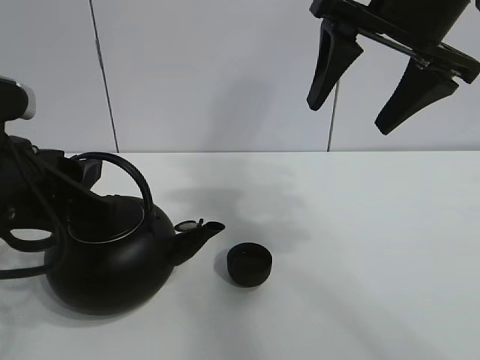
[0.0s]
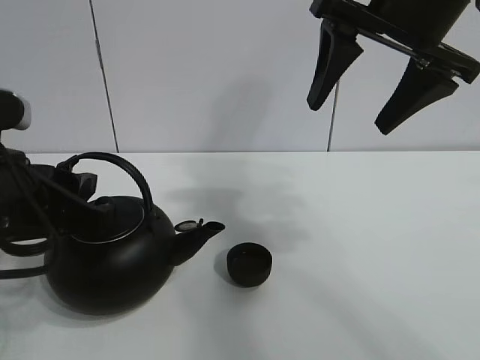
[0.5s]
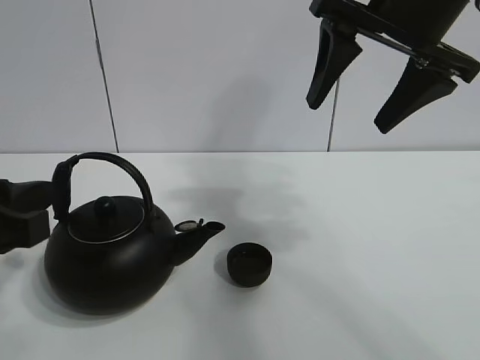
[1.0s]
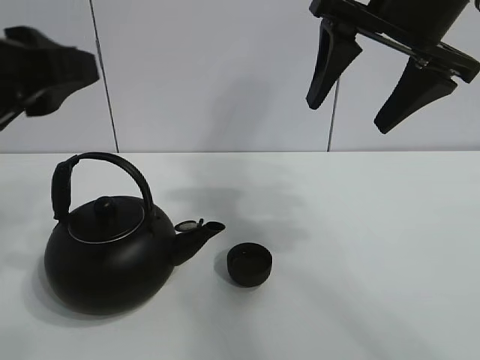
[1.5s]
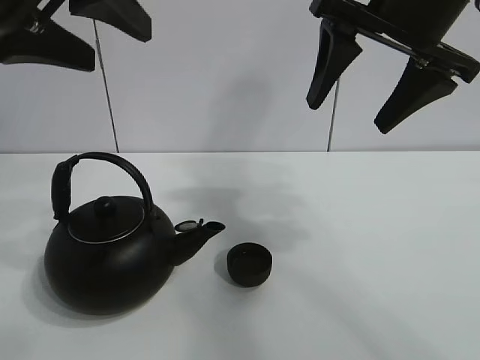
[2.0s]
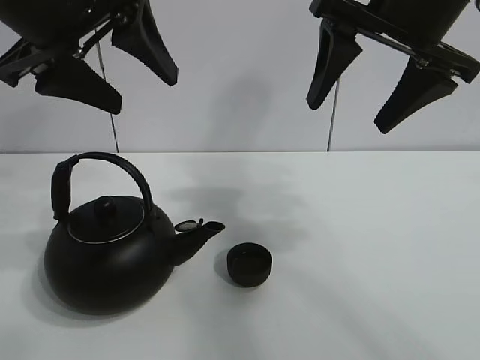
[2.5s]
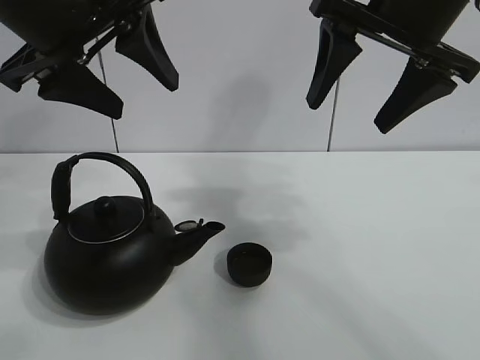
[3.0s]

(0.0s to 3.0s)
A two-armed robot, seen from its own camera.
Task of the whole recording: pour tea into the teacup.
0.0s - 1.5s: The left gripper shifts some 10 cm upward.
1.5s - 3.0s: The left gripper is displaced forward and upward by approximately 10 cm.

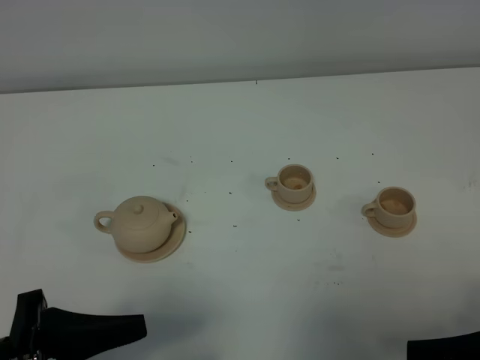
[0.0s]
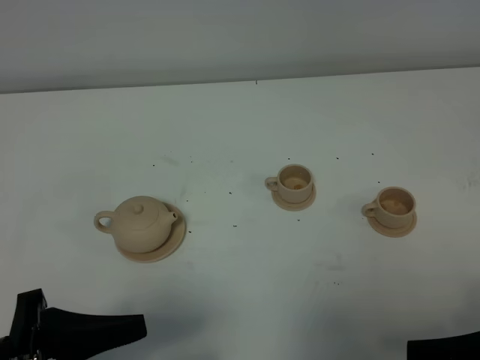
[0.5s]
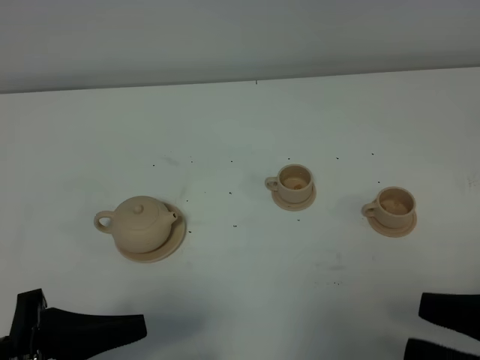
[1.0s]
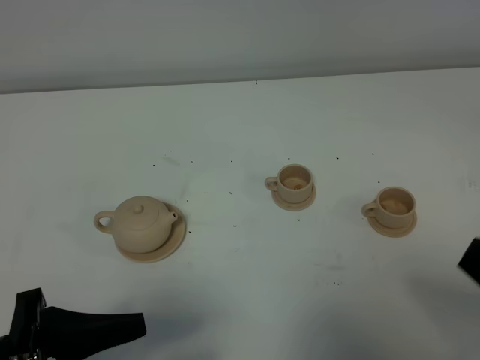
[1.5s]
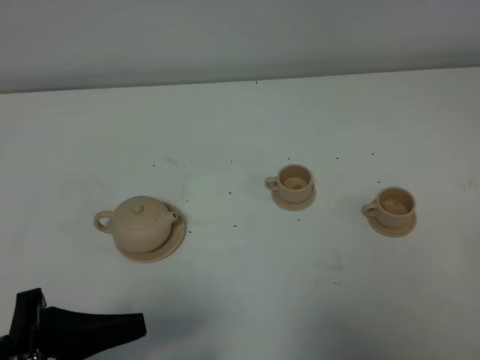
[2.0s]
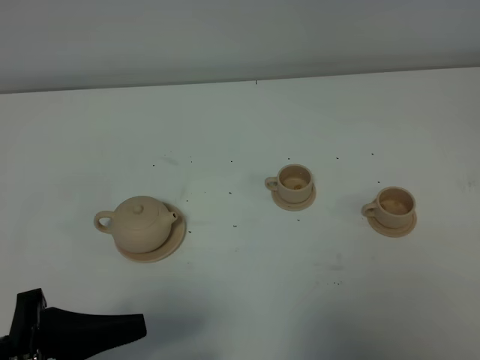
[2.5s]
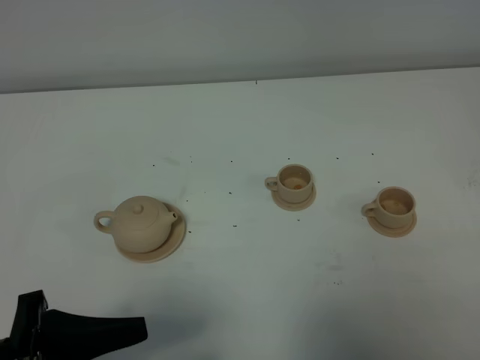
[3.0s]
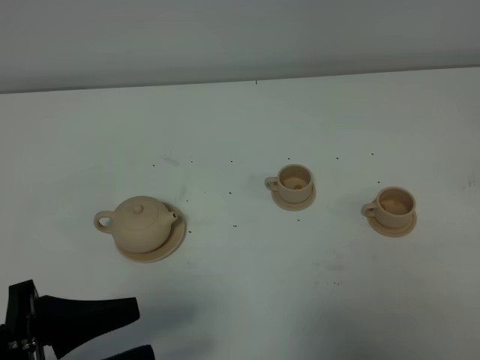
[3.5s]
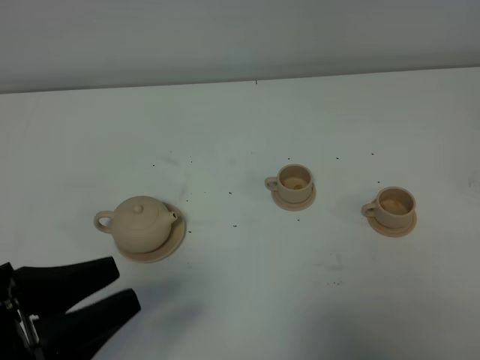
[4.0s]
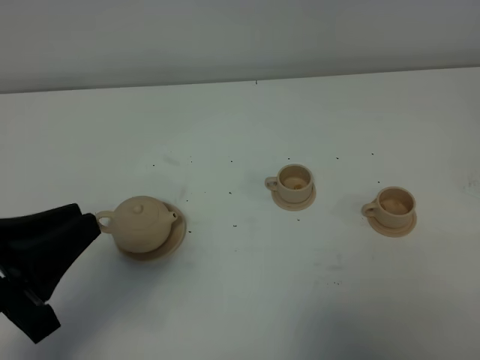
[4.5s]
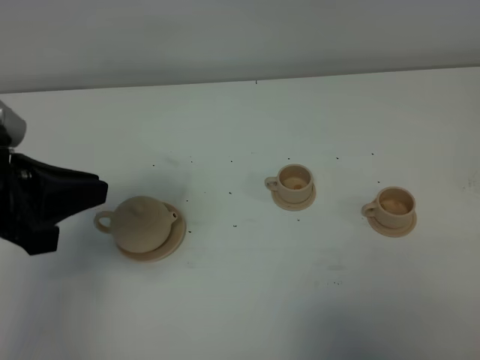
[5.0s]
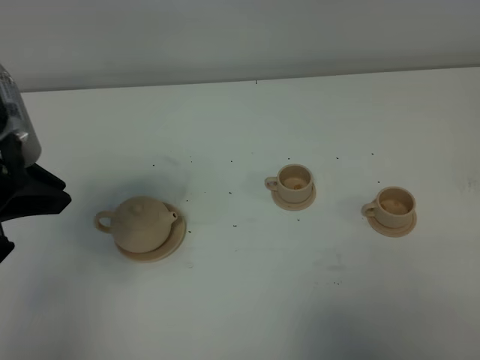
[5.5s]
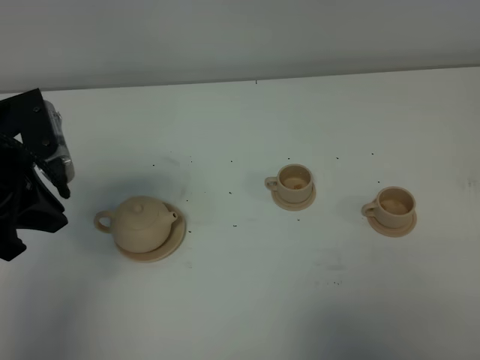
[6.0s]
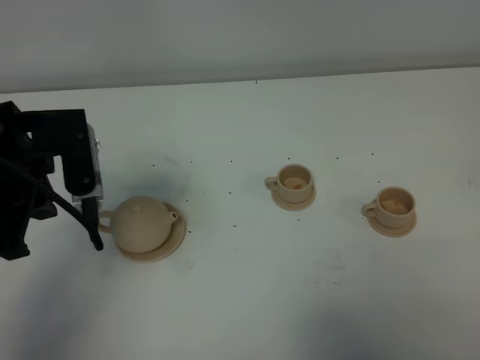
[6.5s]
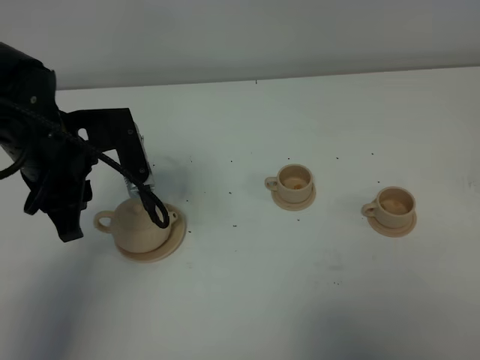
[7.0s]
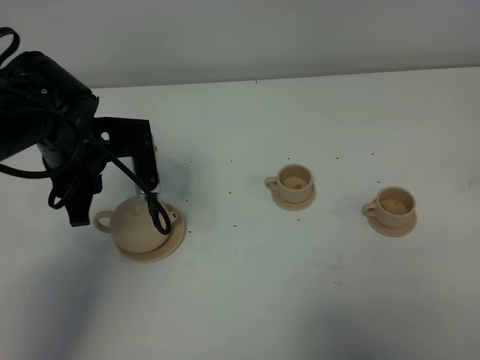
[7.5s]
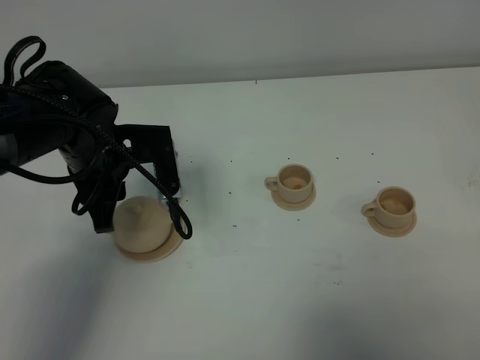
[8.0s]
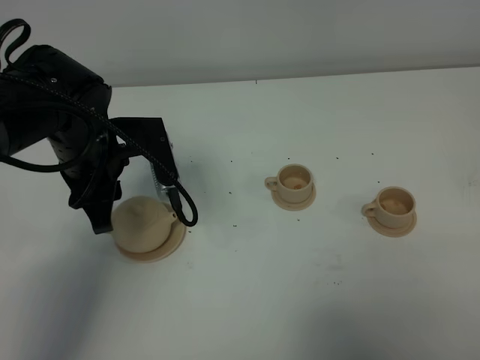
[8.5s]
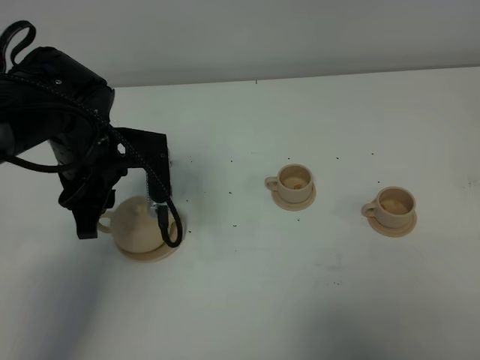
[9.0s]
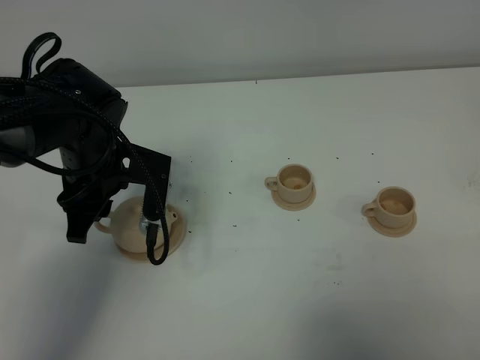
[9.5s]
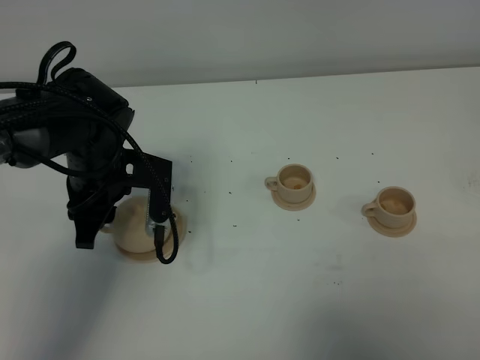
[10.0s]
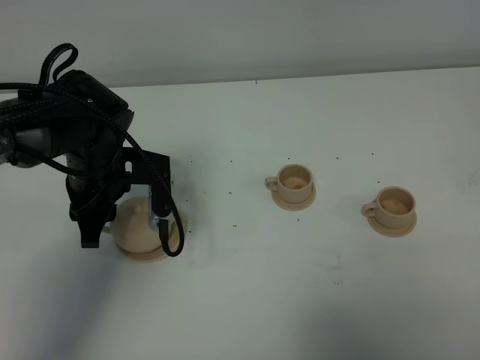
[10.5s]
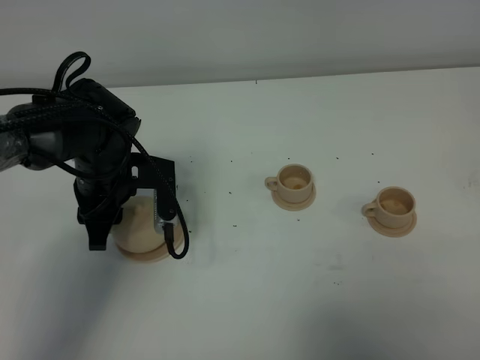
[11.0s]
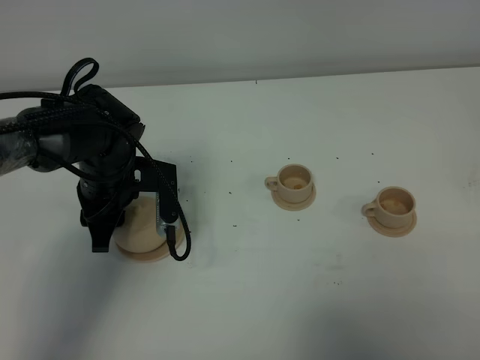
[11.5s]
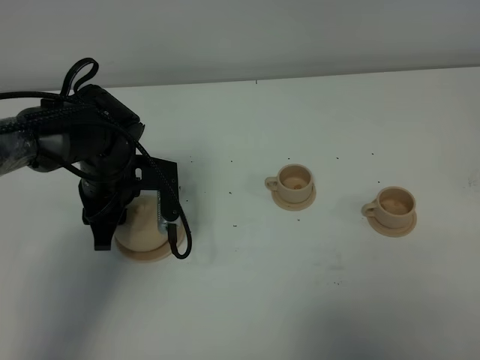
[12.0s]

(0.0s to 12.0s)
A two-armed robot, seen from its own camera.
Task of the whole recording: grasp the brown teapot and pour the tea into the two brown teacups one by one, put the brown teapot back in its original place.
0.0s - 2.0s: The right gripper moves upward and to the right, some 10 cm, and closes.
4.0s - 6.0s: The left gripper goes approximately 15 cm forward, and closes up.
6.0s - 8.0s: The left gripper heads downward, to the right and forward, covering about 15 cm, and opens up.
8.0s - 10.0s: The grippers stay close to where they were, moving slightly.
10.0s - 12.0s: The grippers stay close to where they were, moving slightly.

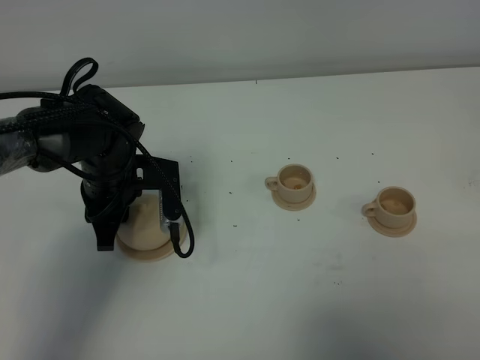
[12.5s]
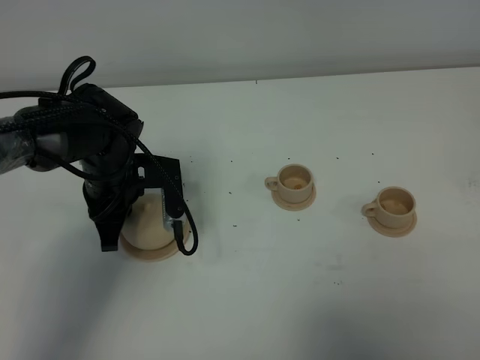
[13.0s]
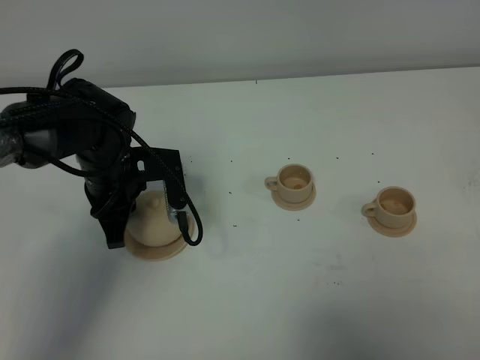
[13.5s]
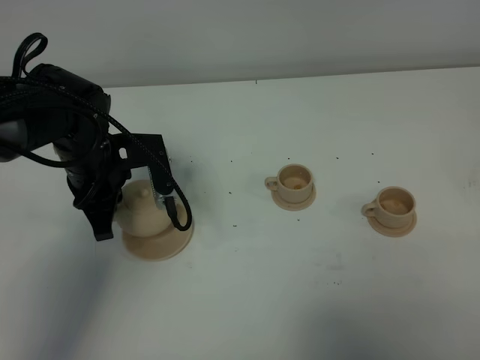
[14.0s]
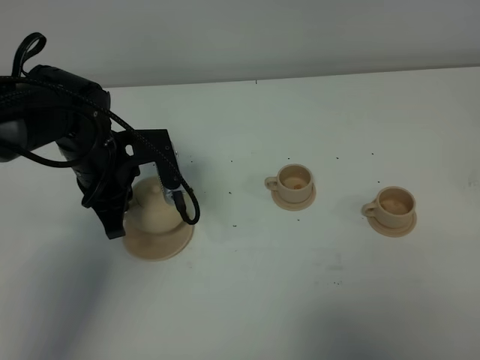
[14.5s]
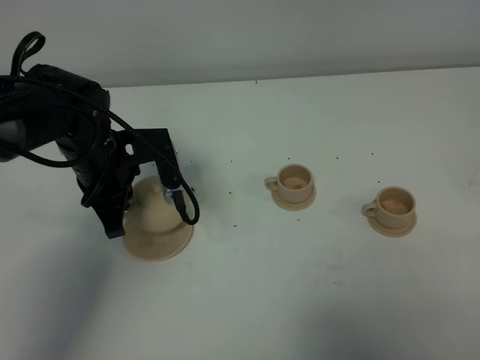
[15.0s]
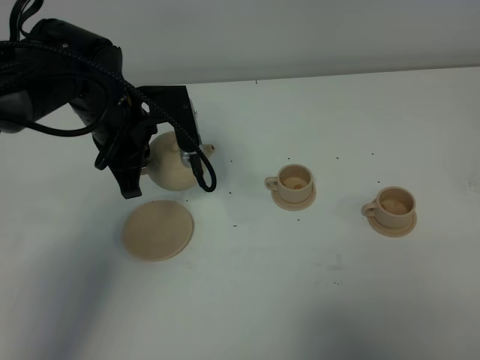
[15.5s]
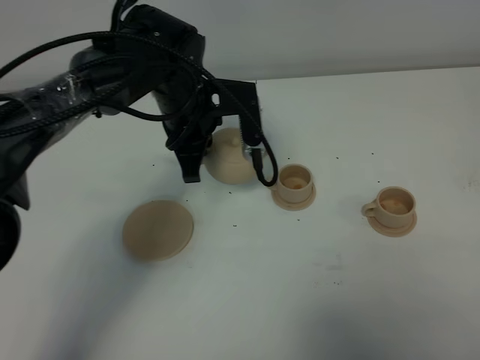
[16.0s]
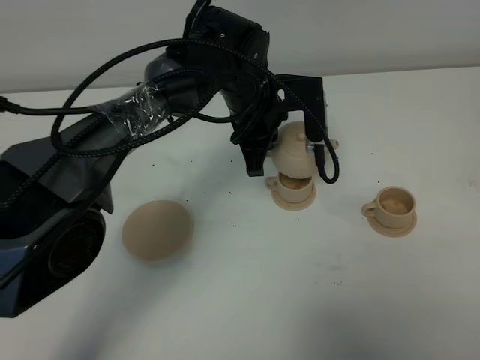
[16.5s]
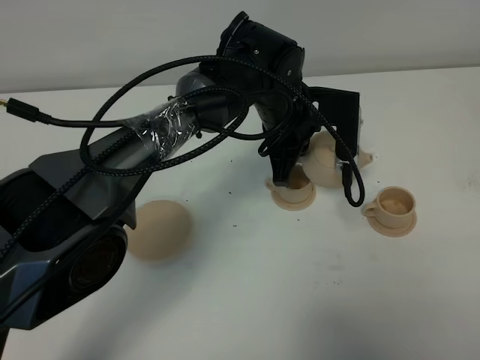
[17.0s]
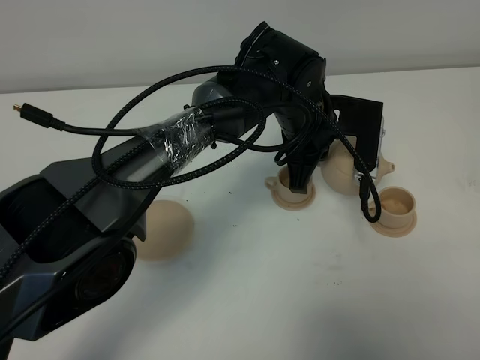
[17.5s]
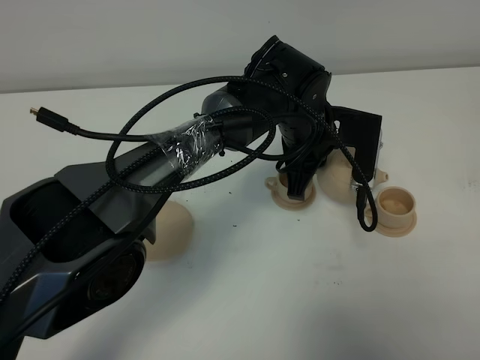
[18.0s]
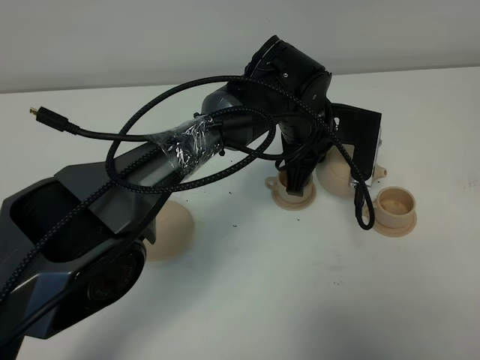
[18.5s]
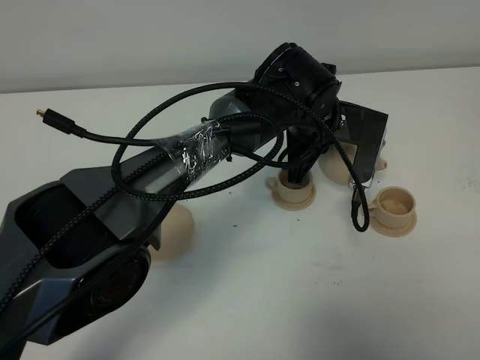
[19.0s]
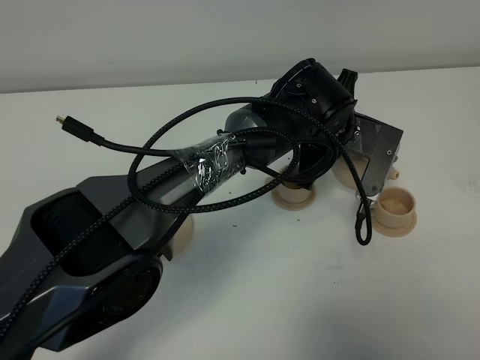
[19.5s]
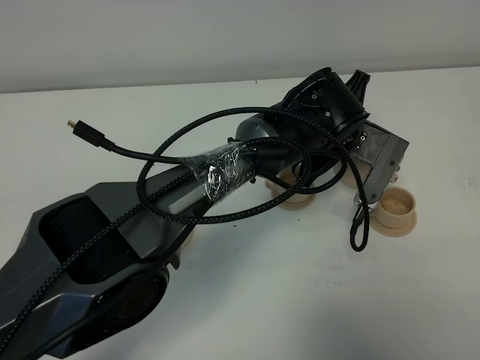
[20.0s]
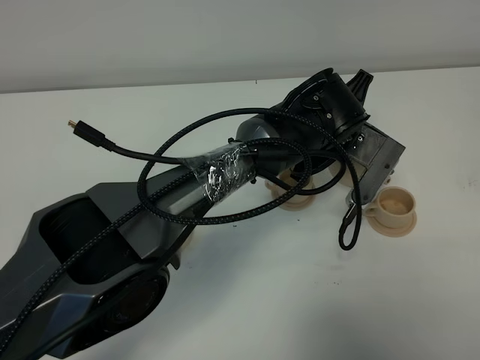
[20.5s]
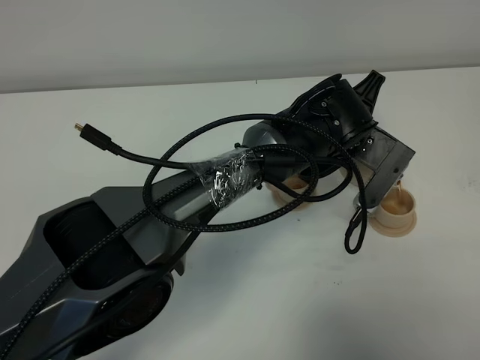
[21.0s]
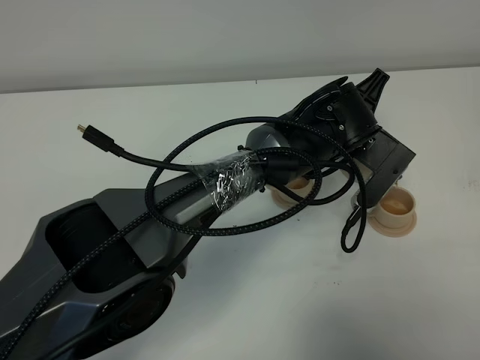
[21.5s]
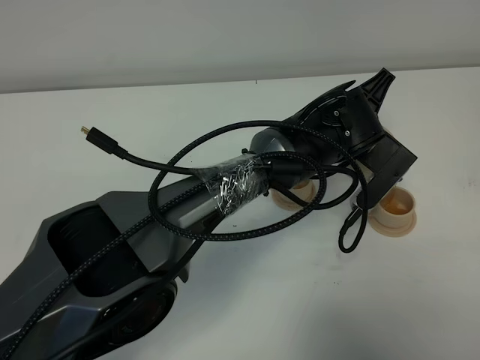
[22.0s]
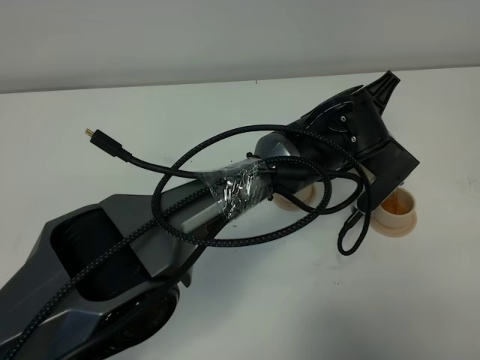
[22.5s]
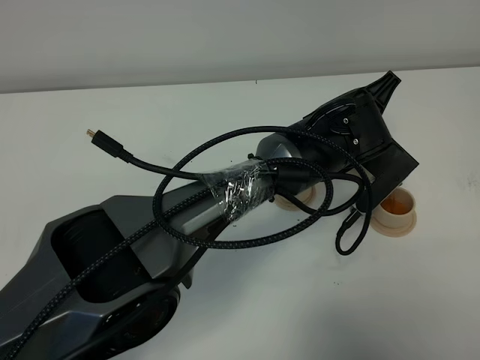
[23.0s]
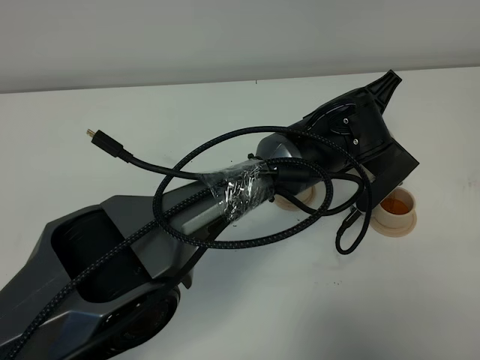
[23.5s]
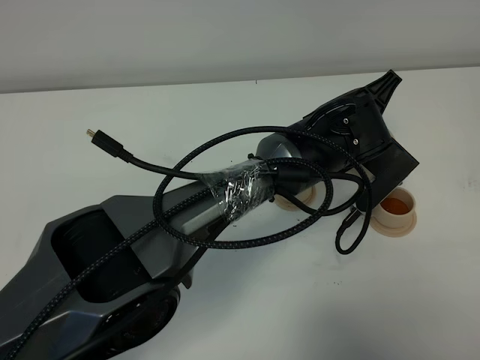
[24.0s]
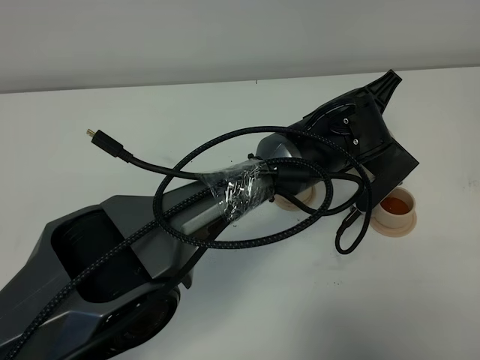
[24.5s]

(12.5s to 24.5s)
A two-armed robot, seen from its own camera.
Task of the whole recording: grasp the brown teapot and pour the tea into the two brown teacups one by one, put the brown teapot back in its original place.
12.5s - 14.5s: The left gripper closes its fingers.
14.5s - 16.5s: The left gripper goes approximately 20 cm to the right.
16.5s - 18.5s: The left gripper goes some 5 cm to the right.
22.5s - 24.5s: Neither gripper changes place.
